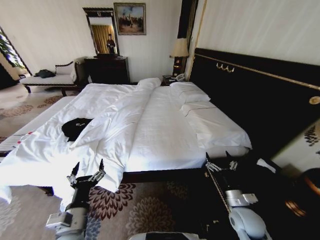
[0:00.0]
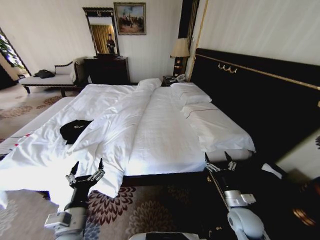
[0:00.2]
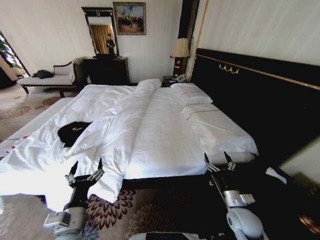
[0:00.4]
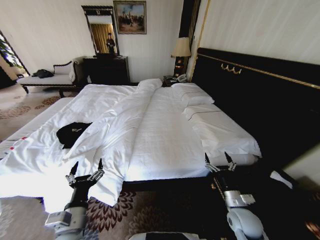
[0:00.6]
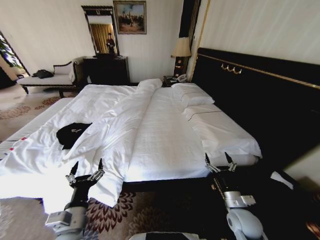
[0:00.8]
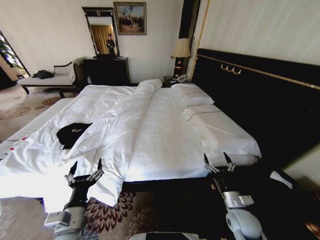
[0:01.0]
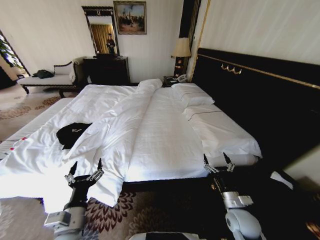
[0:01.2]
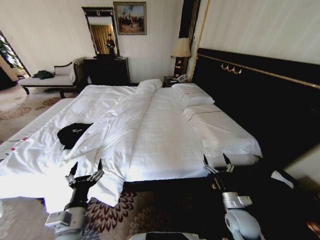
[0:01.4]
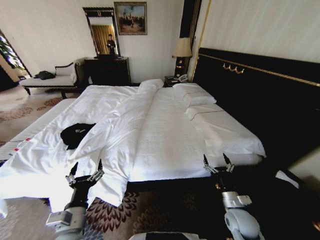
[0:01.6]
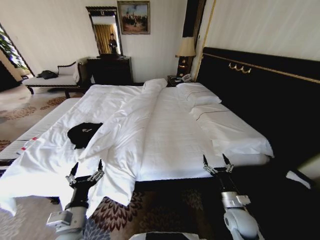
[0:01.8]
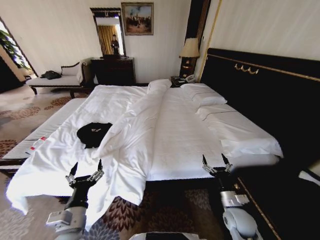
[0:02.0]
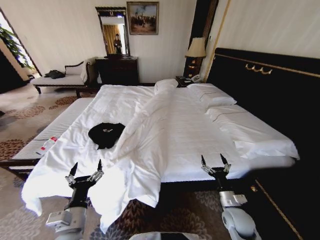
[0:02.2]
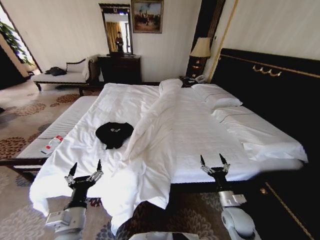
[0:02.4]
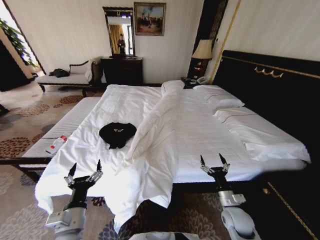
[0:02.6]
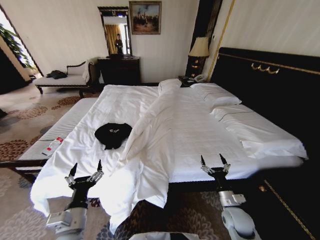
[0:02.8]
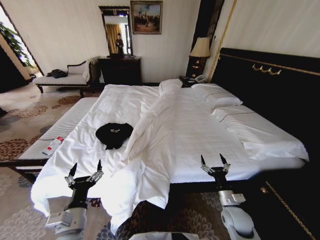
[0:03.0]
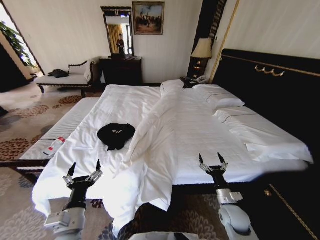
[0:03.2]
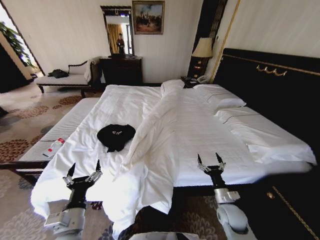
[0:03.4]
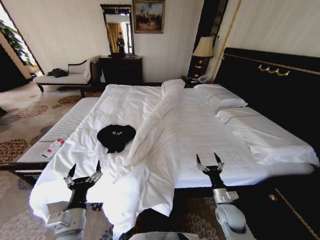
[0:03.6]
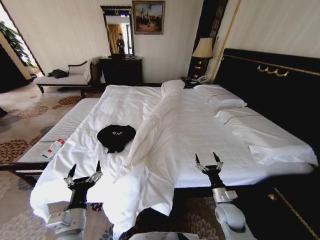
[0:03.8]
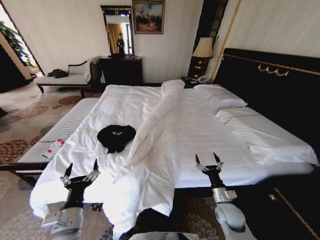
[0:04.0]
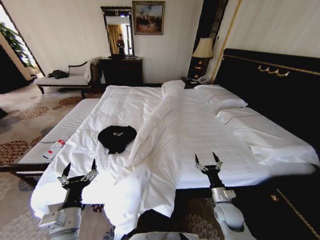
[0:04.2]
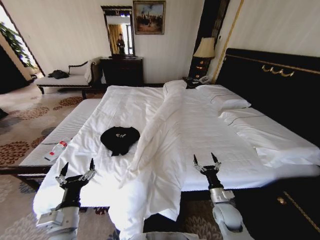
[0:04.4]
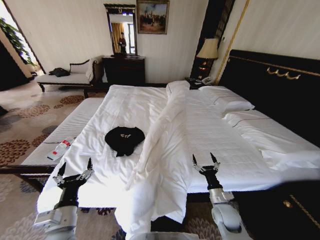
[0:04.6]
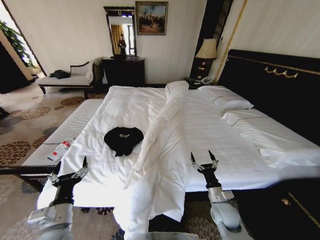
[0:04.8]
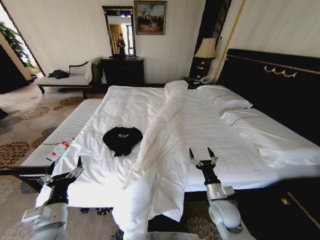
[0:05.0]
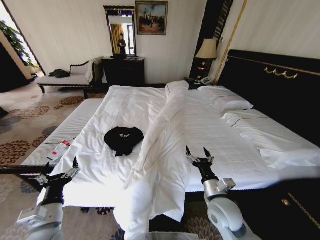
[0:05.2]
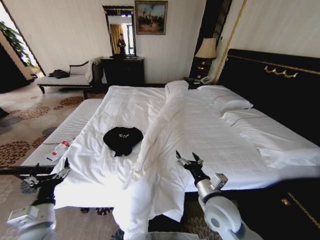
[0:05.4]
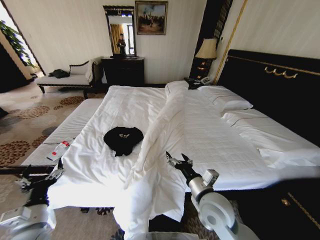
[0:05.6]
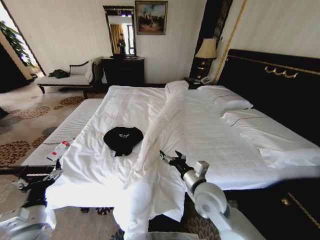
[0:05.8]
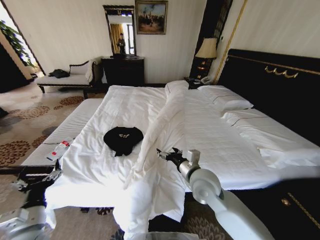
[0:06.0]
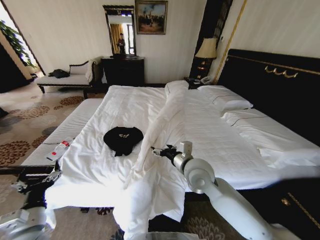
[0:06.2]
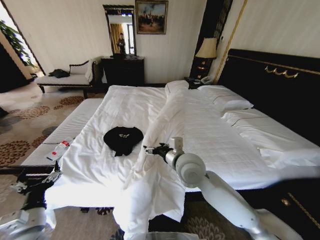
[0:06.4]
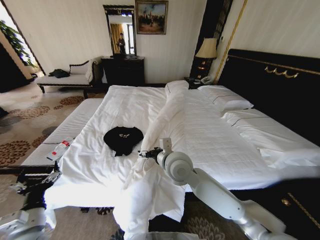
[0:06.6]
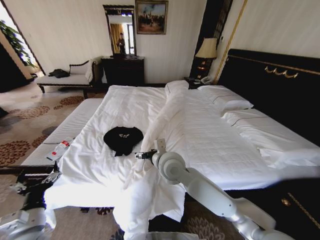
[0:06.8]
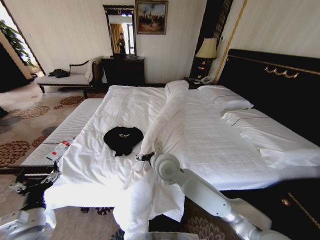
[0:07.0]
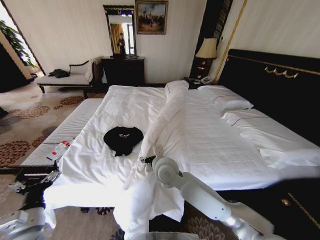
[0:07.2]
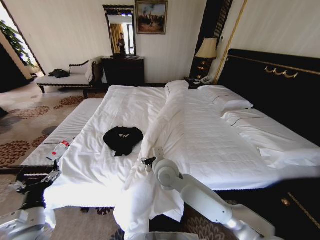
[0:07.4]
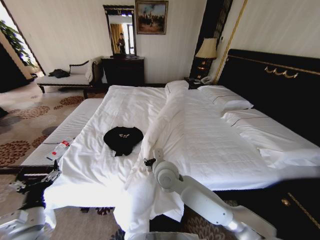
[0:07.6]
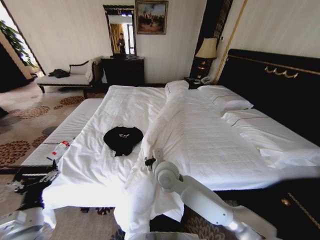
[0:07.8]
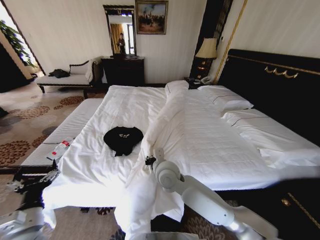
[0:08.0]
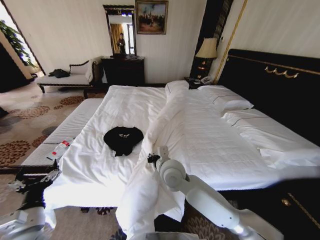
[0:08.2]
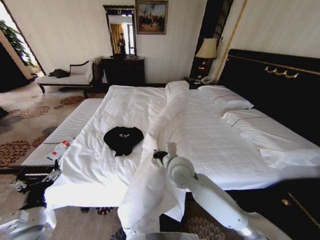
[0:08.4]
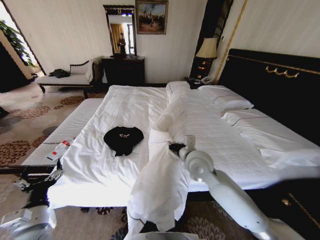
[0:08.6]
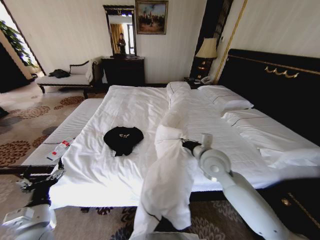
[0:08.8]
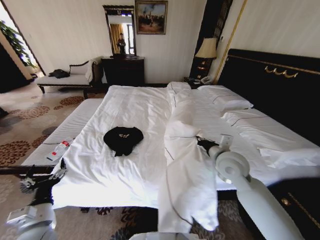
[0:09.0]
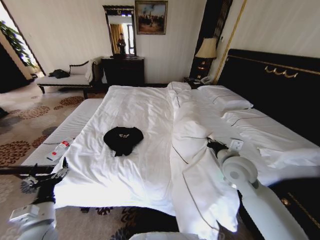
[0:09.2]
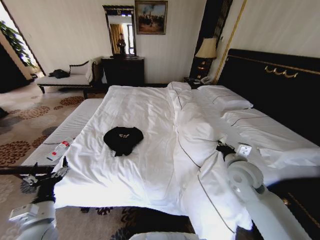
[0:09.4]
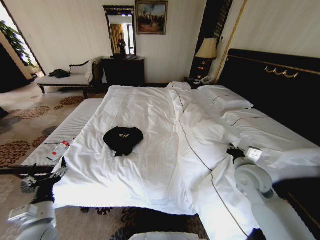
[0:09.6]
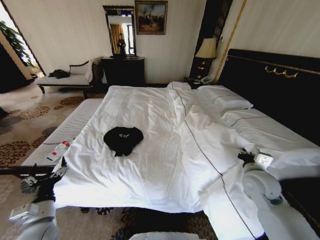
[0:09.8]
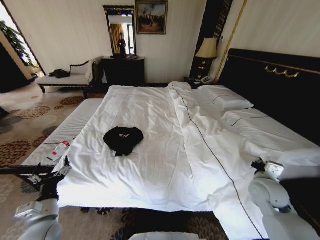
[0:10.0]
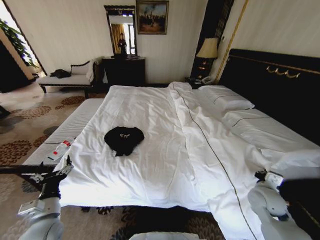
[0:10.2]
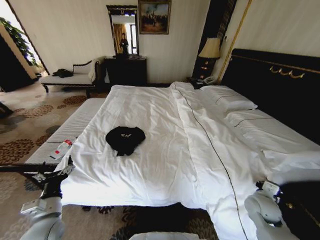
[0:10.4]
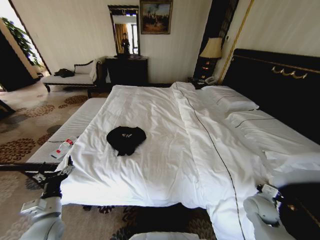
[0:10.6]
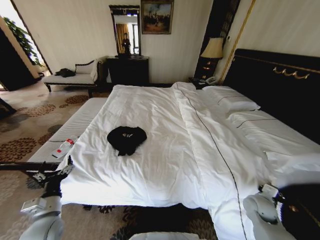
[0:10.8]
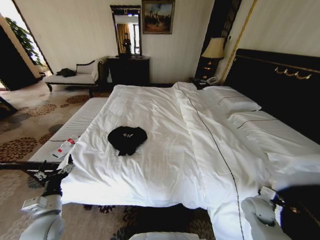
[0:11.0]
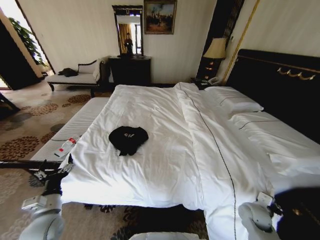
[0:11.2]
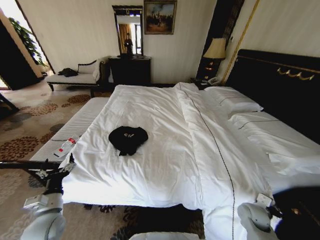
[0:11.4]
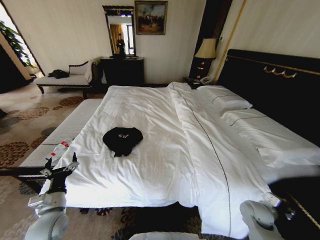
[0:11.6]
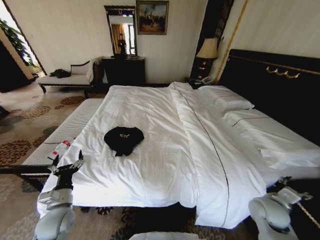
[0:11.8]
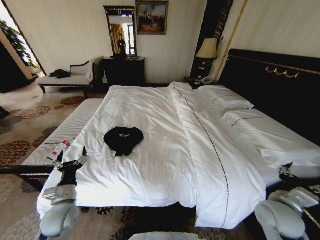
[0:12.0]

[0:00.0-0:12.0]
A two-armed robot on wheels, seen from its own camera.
Task of the whole recording: Fold the clothes on the bed.
0:04.4 to 0:06.0: The right gripper is displaced upward and to the left by about 25 cm. Meanwhile the left gripper goes roughly 10 cm to the left.
0:06.0 to 0:07.6: The right gripper is displaced to the left by about 10 cm, and closes its fingers.
0:07.6 to 0:09.0: The right gripper is displaced to the right by about 20 cm, and closes its fingers.
0:09.0 to 0:10.4: The right gripper goes some 25 cm downward, to the right and backward.
0:10.4 to 0:12.0: The right gripper goes roughly 5 cm upward, and opens its fingers.

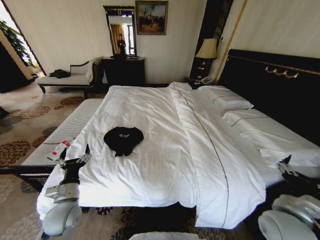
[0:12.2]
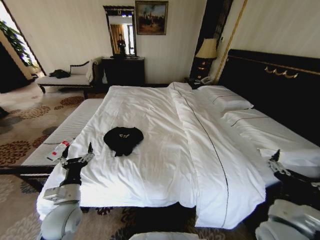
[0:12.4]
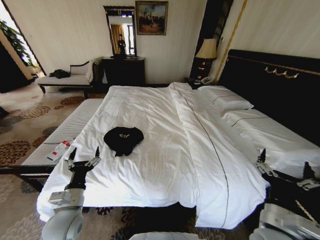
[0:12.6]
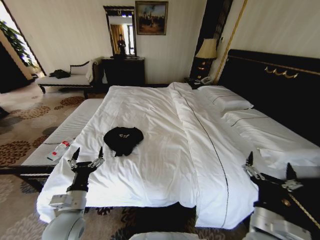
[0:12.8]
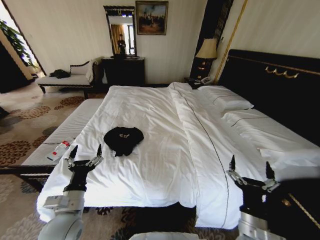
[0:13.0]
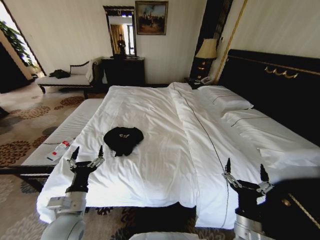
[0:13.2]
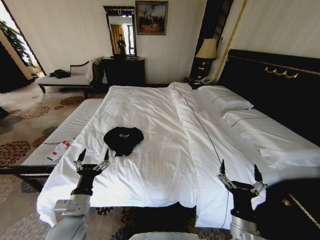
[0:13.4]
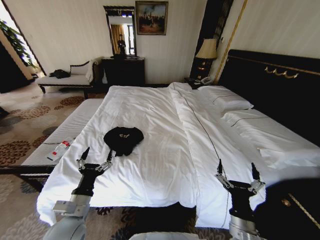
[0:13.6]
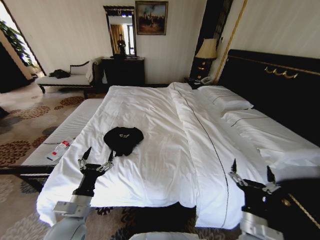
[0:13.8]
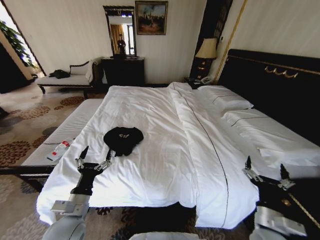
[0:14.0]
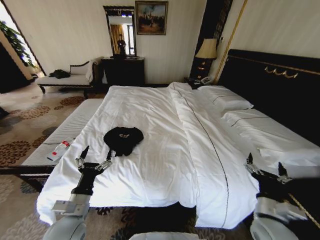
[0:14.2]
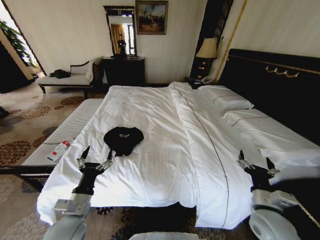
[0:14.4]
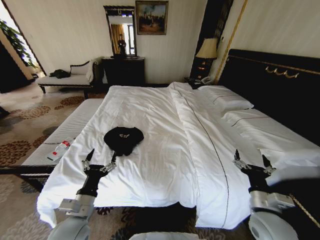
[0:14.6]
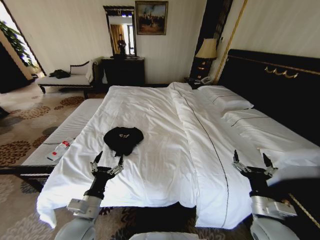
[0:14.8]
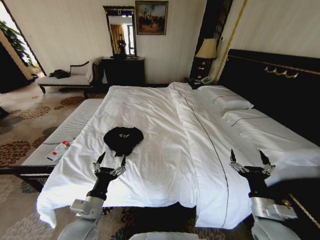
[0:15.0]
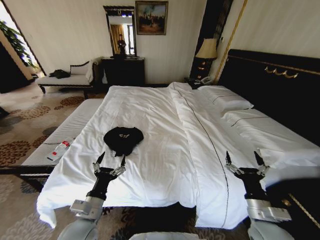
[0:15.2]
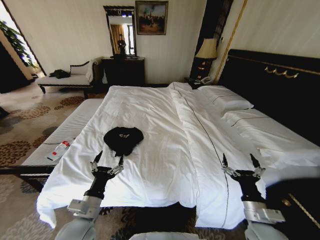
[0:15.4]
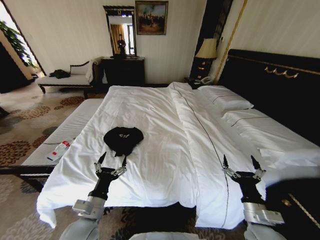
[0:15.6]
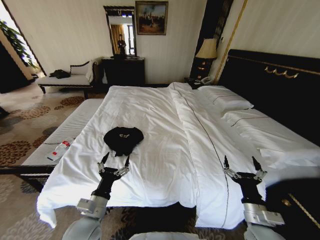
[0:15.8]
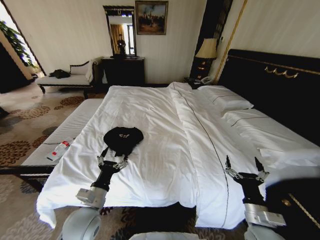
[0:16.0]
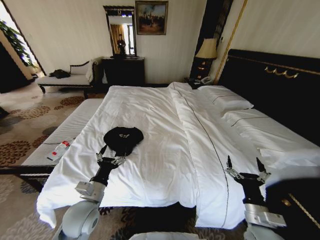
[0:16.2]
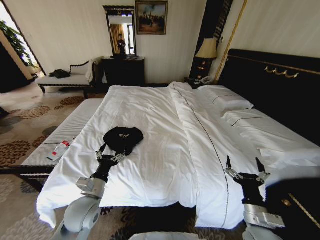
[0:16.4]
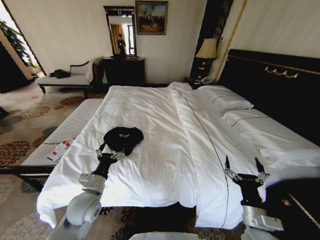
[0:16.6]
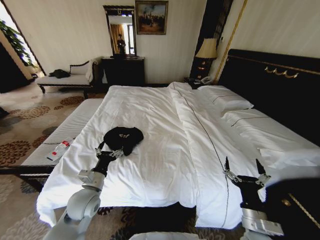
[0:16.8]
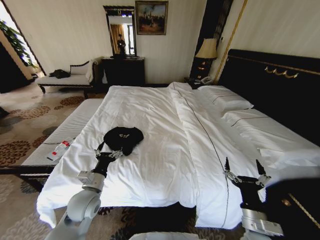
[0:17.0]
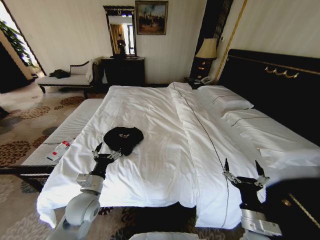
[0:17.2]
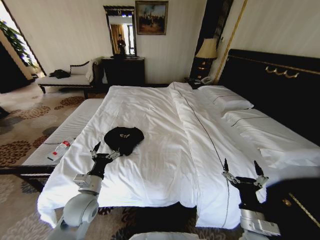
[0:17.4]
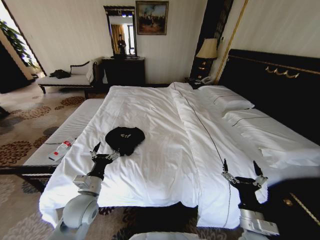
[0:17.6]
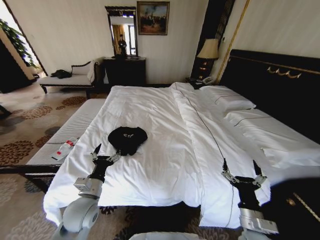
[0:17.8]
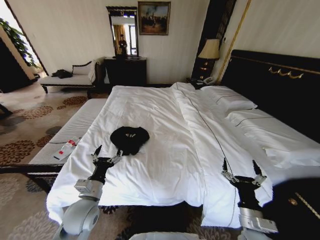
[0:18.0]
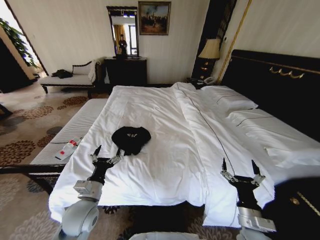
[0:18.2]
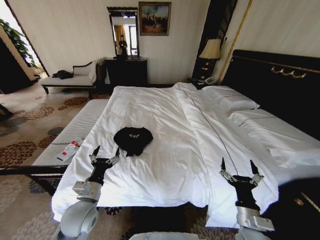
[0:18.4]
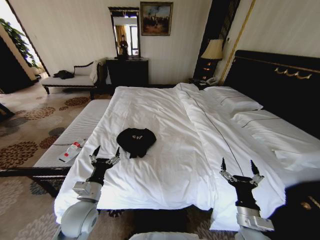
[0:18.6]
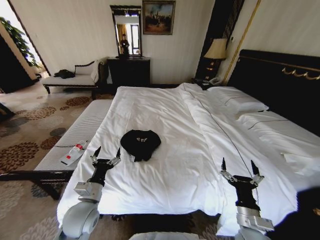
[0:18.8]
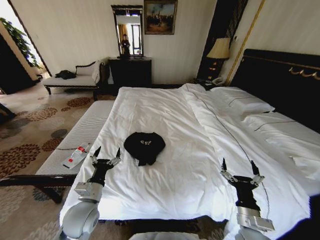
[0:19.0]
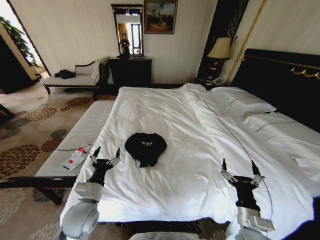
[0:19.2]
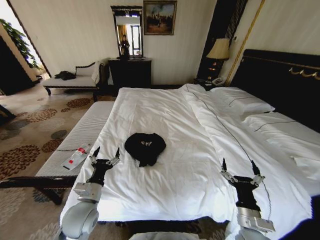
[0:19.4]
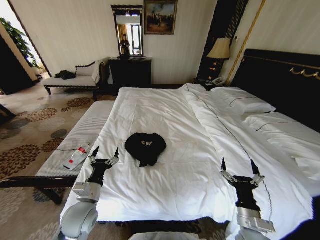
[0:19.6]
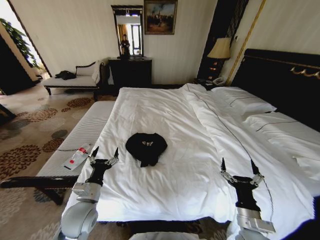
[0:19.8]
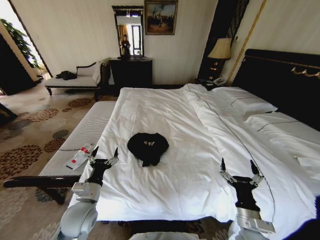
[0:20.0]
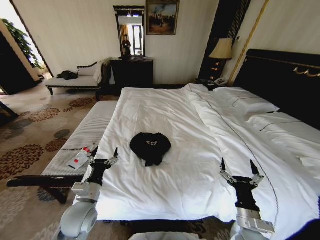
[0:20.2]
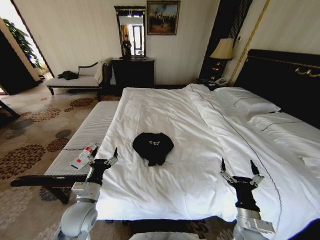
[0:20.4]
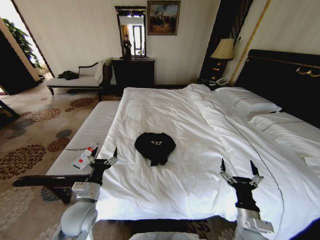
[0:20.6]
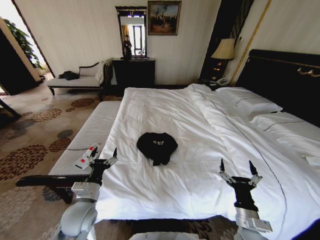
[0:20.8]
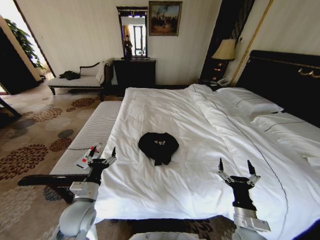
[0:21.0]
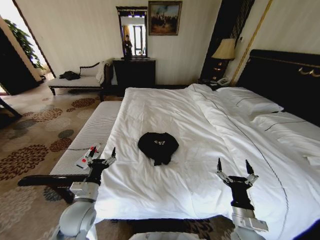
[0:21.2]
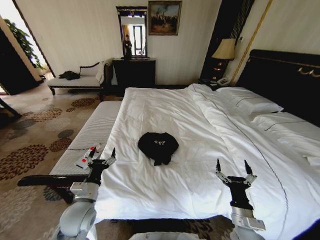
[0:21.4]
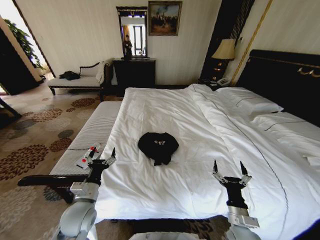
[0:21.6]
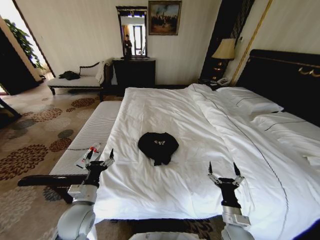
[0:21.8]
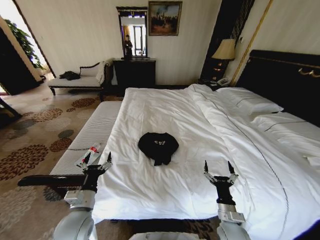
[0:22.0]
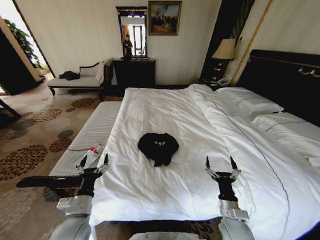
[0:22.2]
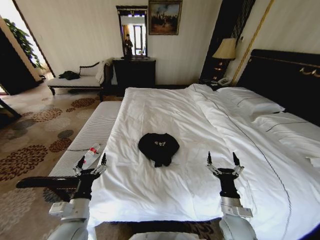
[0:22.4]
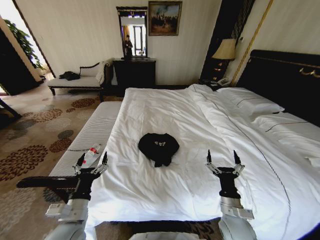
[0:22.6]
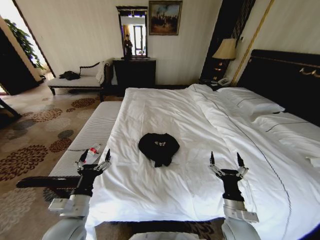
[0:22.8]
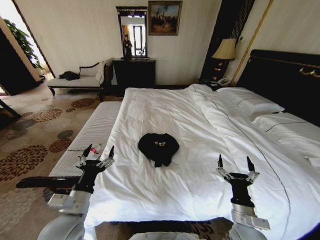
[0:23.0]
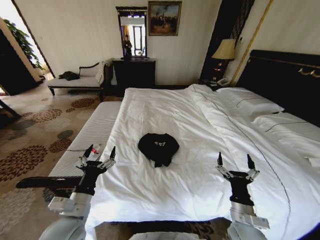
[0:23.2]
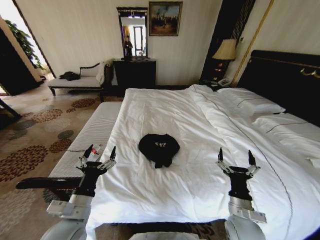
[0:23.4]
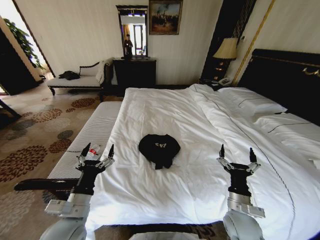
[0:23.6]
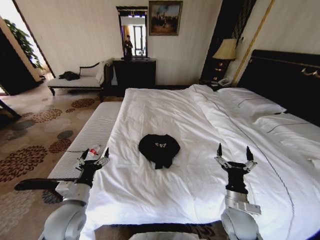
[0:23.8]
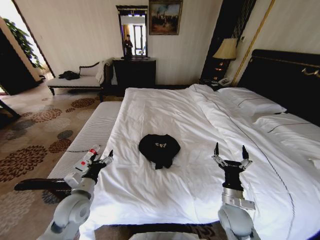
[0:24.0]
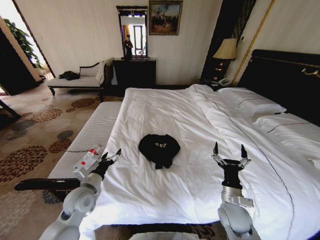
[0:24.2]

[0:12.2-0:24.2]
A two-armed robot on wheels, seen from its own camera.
Task of the whole recording: Fold the clothes on the bed.
0:12.2 to 0:13.8: The left gripper travels to the right and backward by some 10 cm. Meanwhile the right gripper shifts approximately 10 cm to the left, downward and backward.
0:13.8 to 0:15.2: The right gripper goes some 5 cm to the right.
0:15.2 to 0:16.6: The left gripper is displaced forward by about 10 cm.
0:21.2 to 0:22.6: The left gripper goes roughly 5 cm backward.
0:22.6 to 0:24.2: The left gripper heads forward, covering approximately 10 cm.
